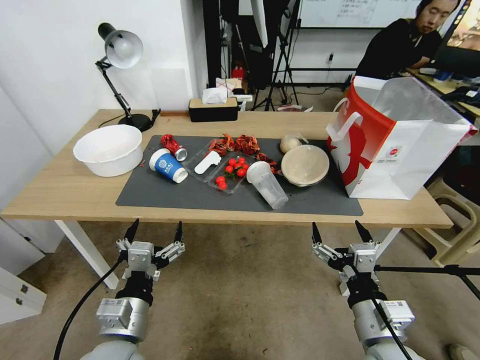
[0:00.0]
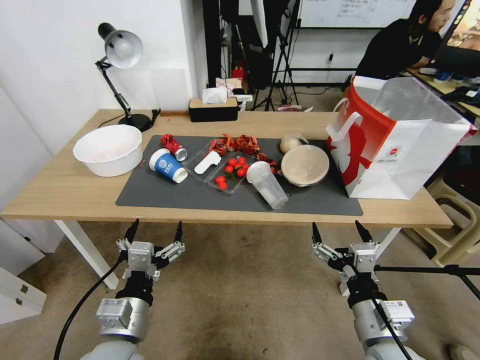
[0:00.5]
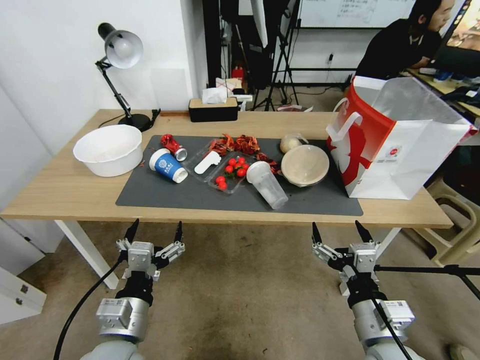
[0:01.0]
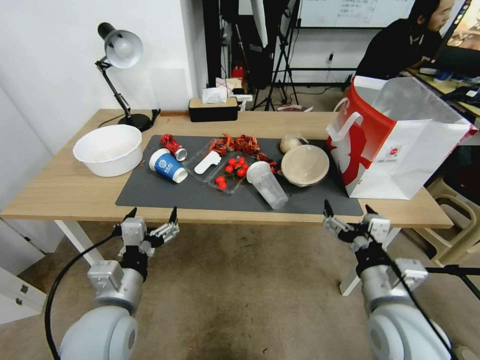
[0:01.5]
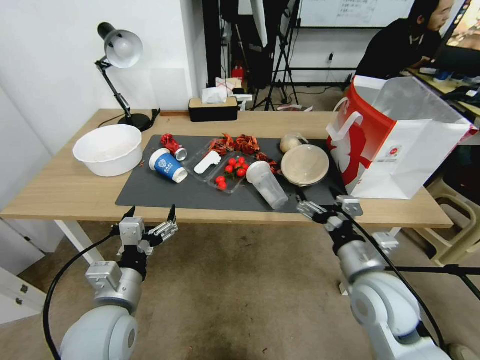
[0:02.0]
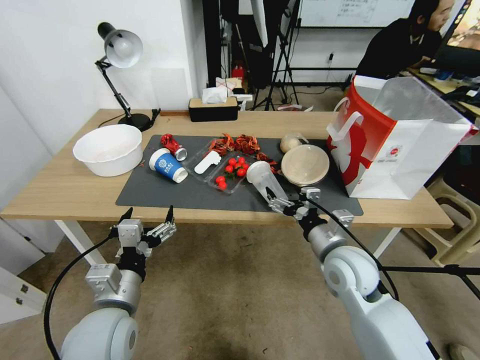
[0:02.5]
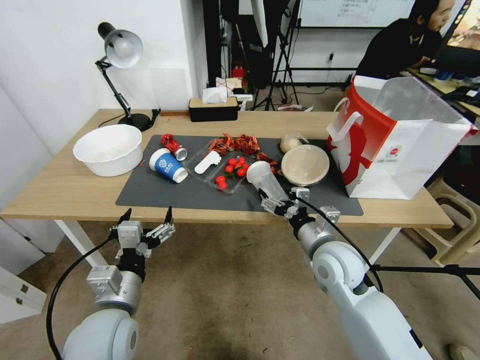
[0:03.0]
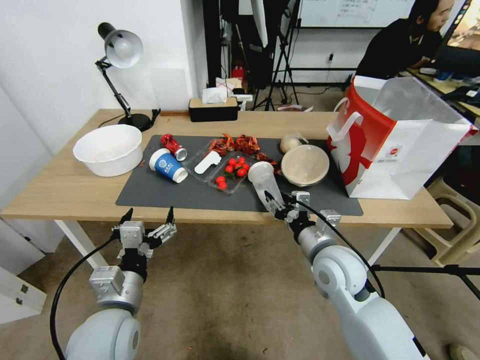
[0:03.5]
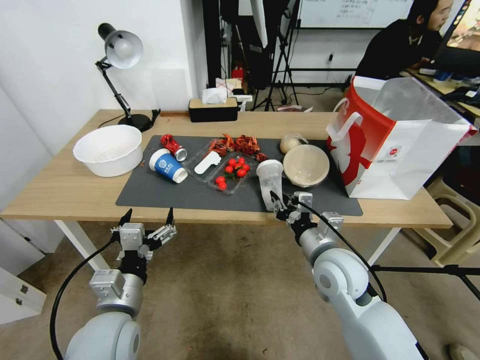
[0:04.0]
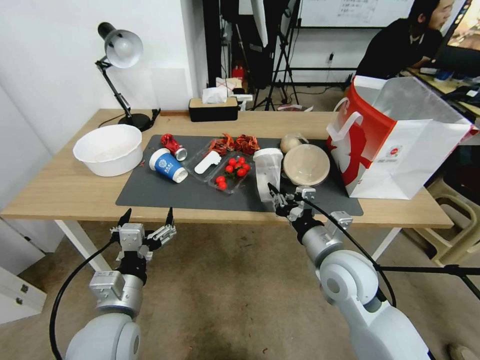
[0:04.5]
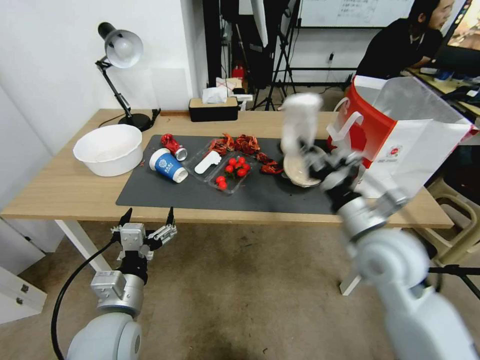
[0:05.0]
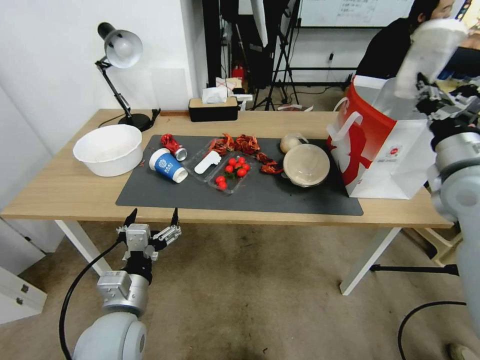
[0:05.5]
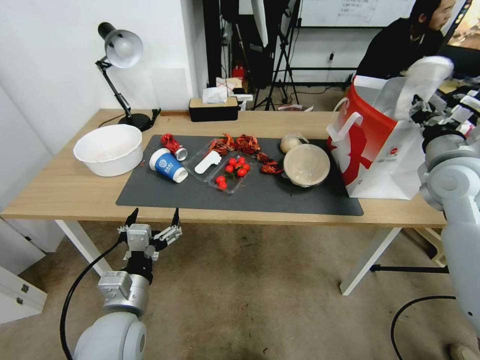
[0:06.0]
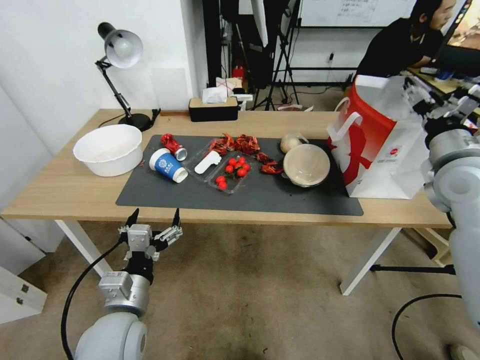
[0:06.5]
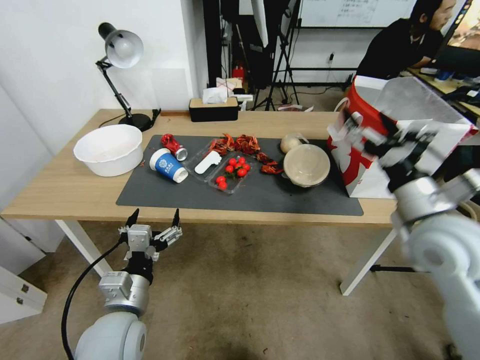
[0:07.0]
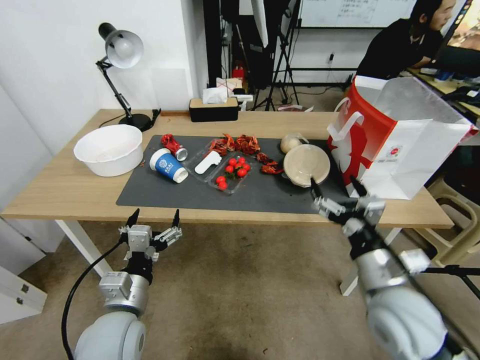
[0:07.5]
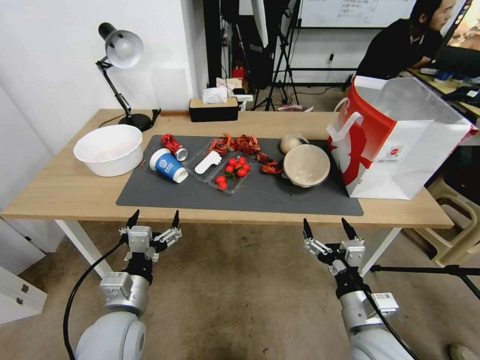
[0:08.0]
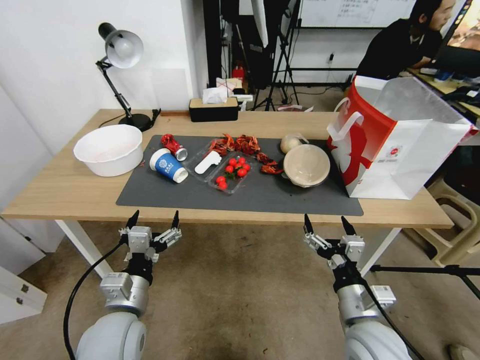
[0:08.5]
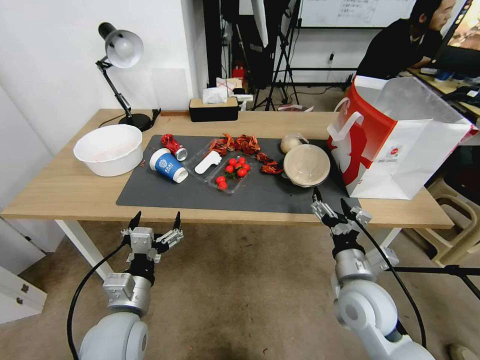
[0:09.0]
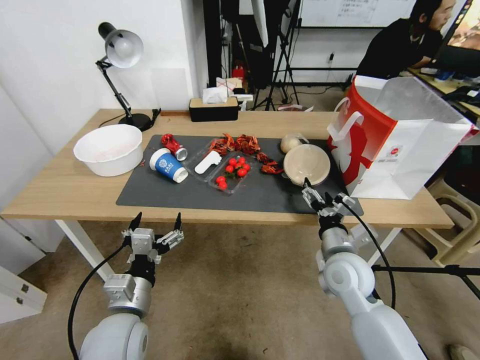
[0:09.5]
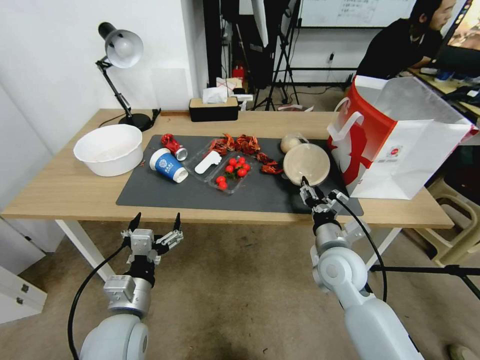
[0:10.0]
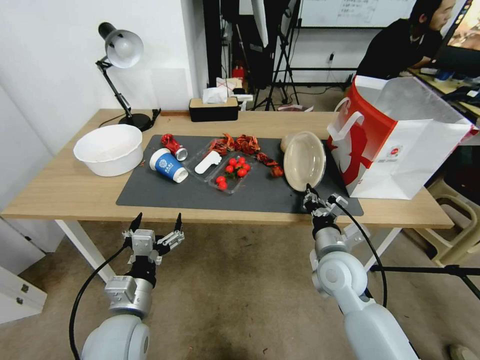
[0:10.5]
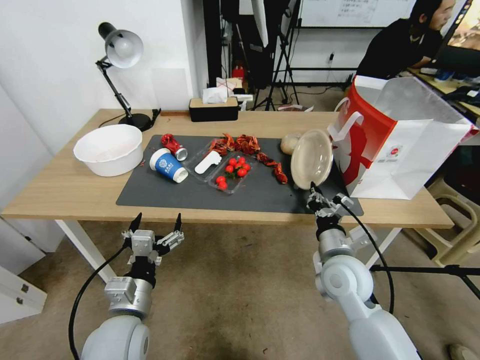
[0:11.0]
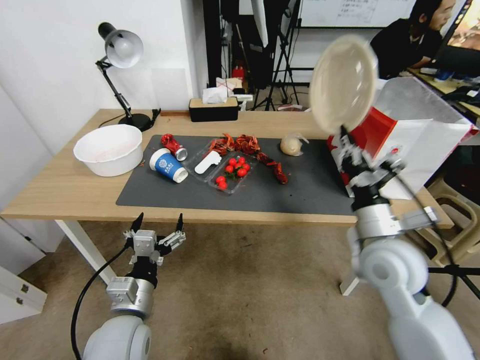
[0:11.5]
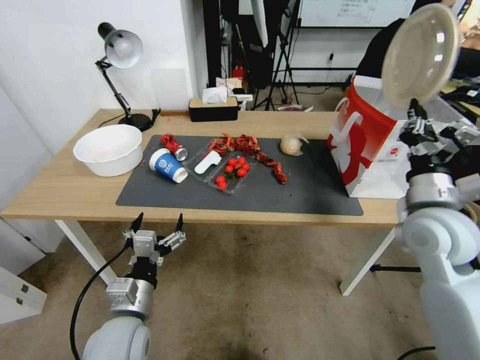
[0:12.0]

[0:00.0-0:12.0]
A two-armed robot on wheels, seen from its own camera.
0:02.0 to 0:04.0: The right gripper goes roughly 10 cm forward and to the left, and closes.
0:04.0 to 0:06.0: The right gripper goes about 30 cm to the right, upward and forward.
0:06.0 to 0:08.0: The right gripper moves backward, downward and to the left, roughly 35 cm, and opens up.
0:08.0 to 0:10.0: The right gripper is displaced forward by some 15 cm, and closes its fingers.
0:10.0 to 0:12.0: The right gripper is displaced upward and to the right by approximately 15 cm, and closes up.

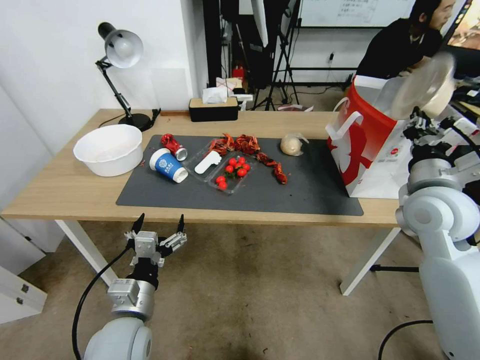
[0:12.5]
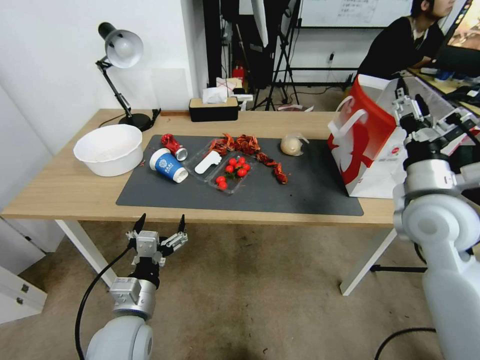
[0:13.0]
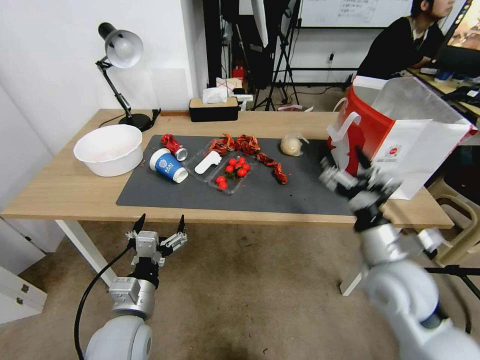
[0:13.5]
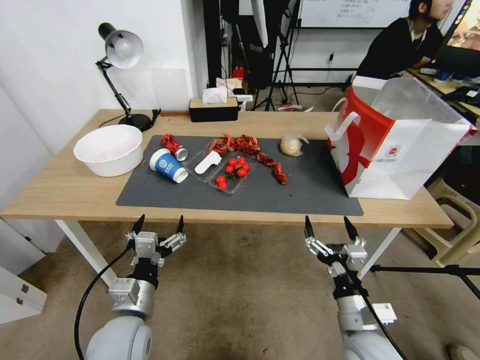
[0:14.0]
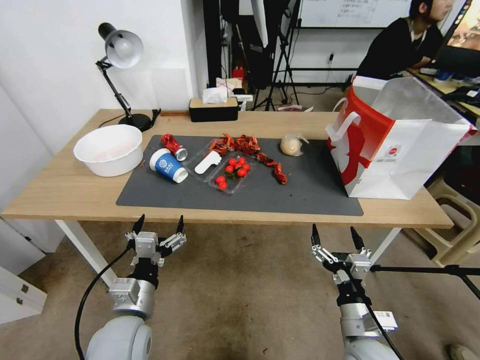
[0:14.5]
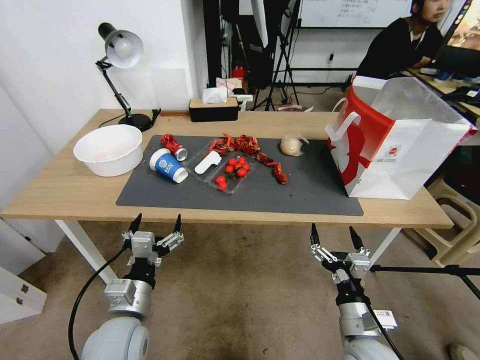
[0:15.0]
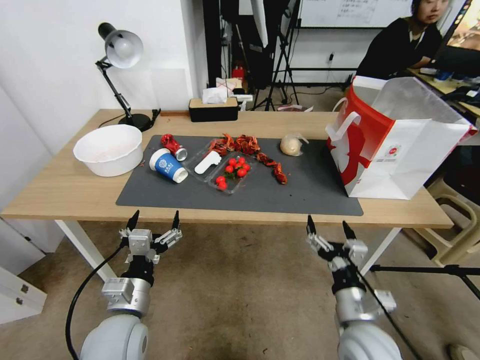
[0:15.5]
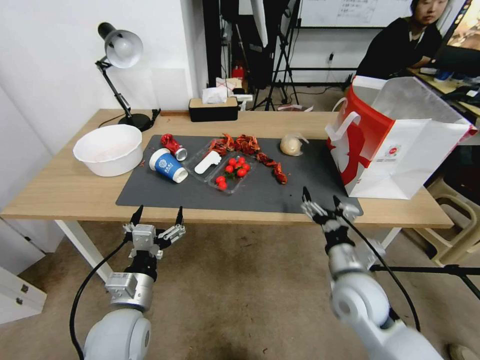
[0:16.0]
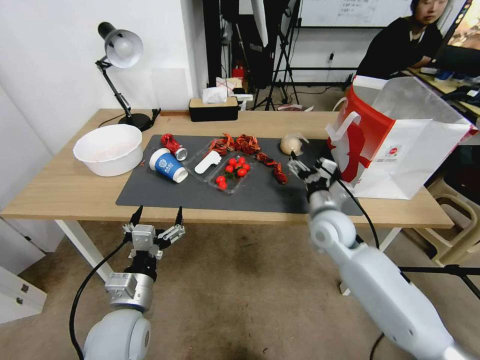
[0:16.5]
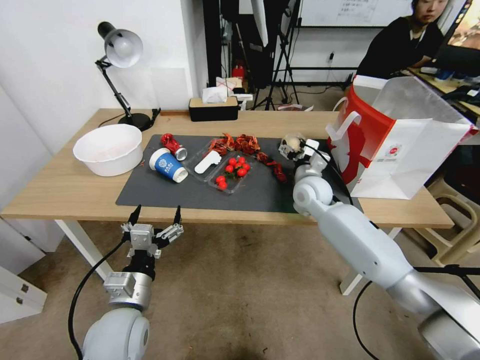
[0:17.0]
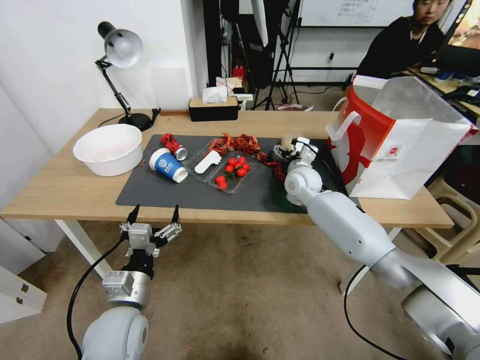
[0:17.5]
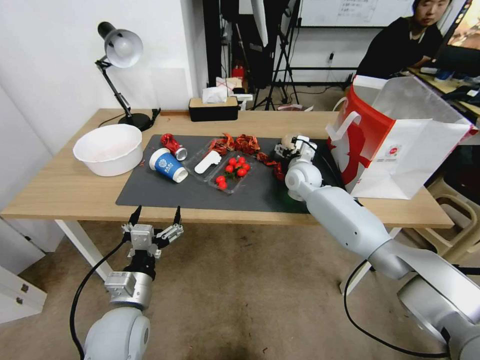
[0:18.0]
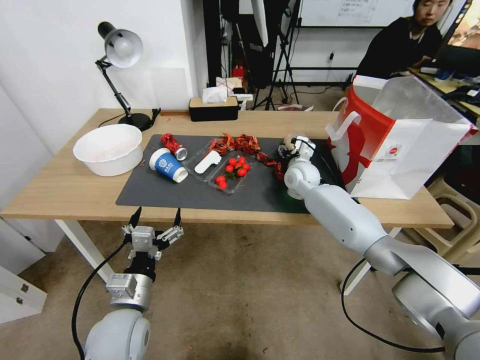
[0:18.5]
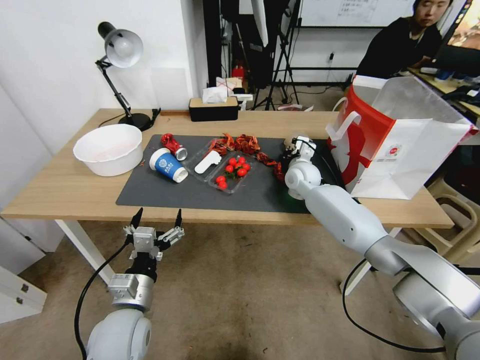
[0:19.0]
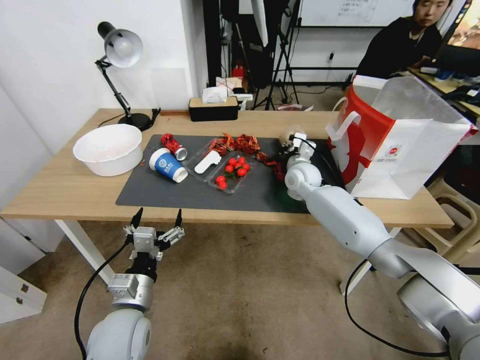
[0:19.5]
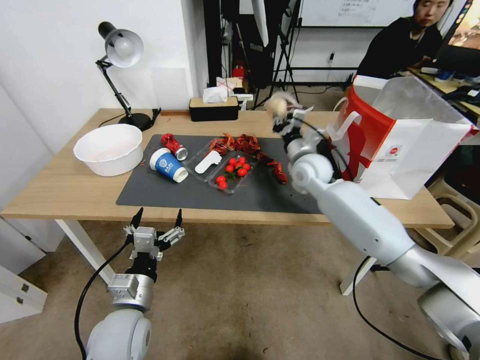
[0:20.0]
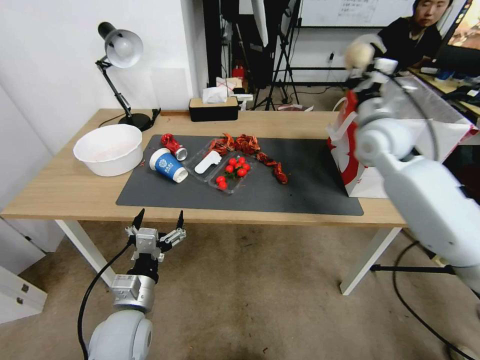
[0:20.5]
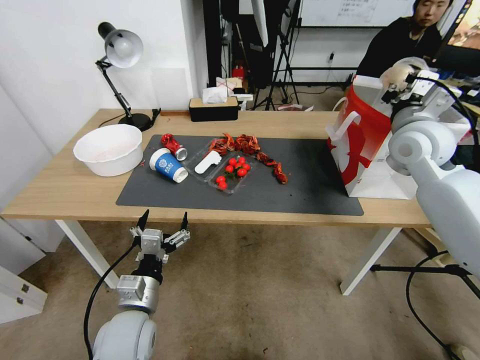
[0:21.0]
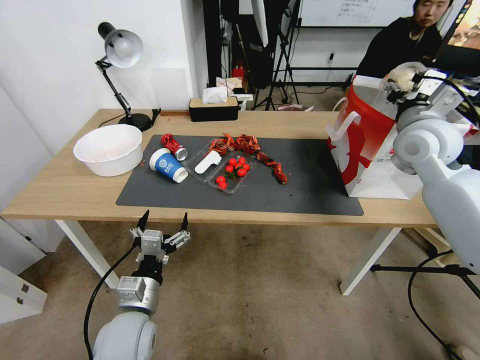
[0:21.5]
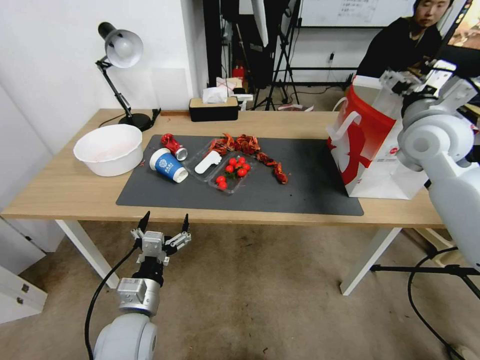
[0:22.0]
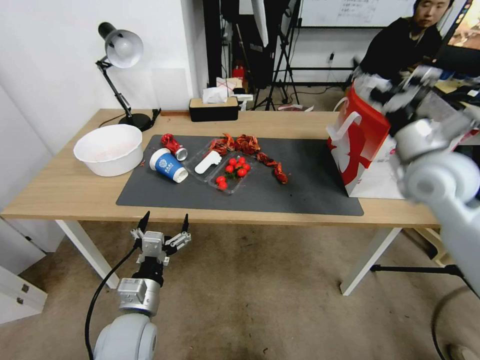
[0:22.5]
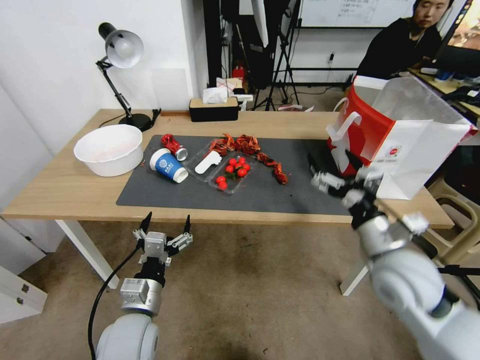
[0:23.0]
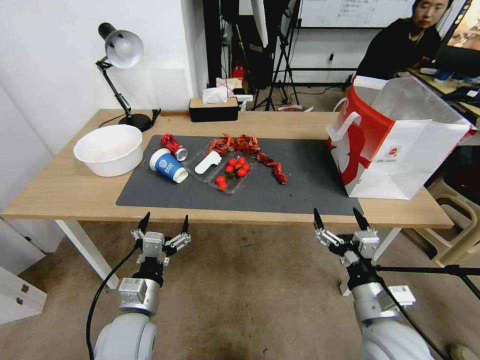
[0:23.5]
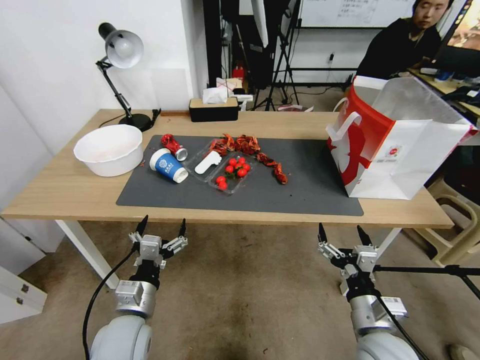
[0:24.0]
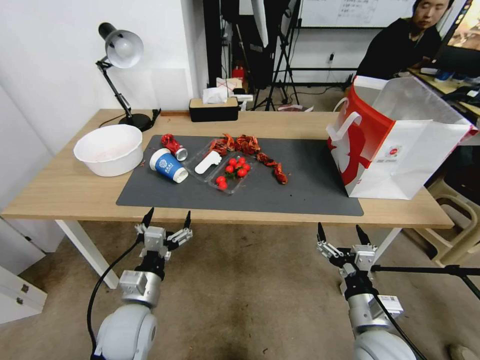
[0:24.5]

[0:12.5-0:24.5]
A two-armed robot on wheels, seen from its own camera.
0:12.5 to 0:14.5: The right gripper moves downward and backward, some 30 cm, and opens up.
0:14.5 to 0:16.5: The right gripper travels forward by some 25 cm.
0:16.5 to 0:18.5: The right gripper heads forward, covering about 15 cm.
0:18.5 to 0:20.5: The right gripper moves upward and to the right, about 20 cm, and closes.
0:20.5 to 0:22.5: The right gripper moves backward and to the right, some 10 cm, and opens its fingers.
0:22.5 to 0:24.5: The right gripper moves downward and backward, approximately 35 cm.

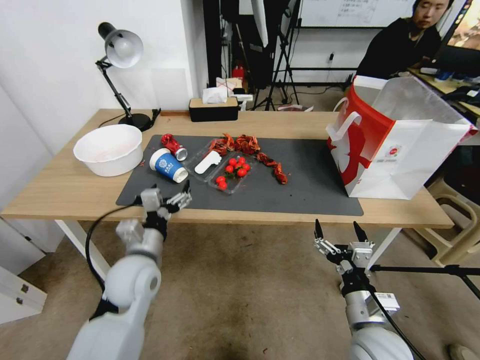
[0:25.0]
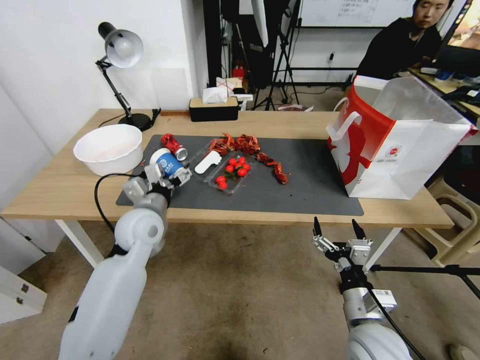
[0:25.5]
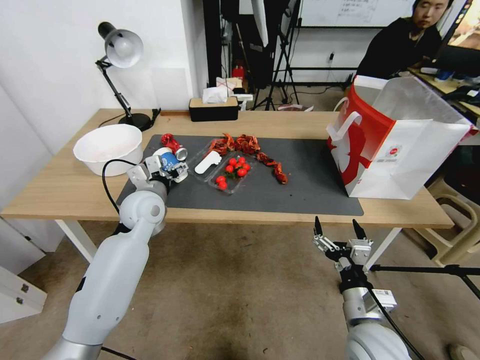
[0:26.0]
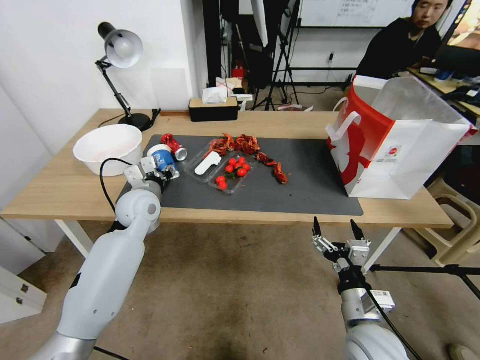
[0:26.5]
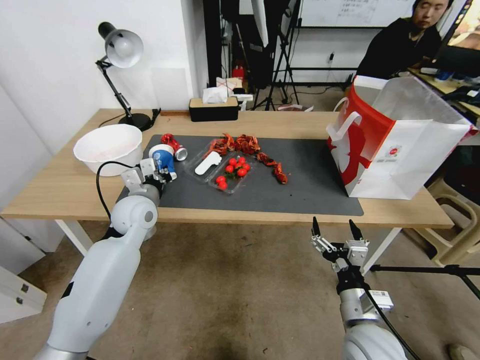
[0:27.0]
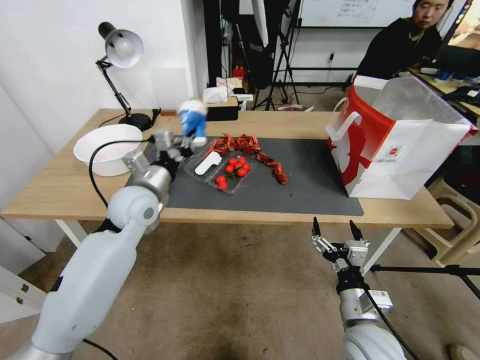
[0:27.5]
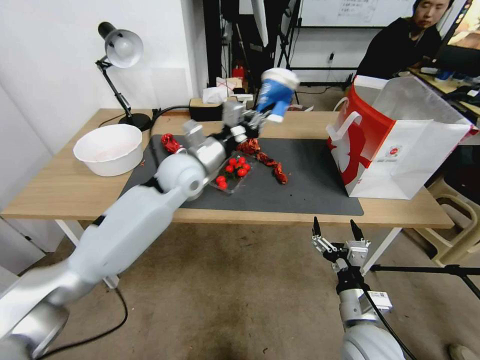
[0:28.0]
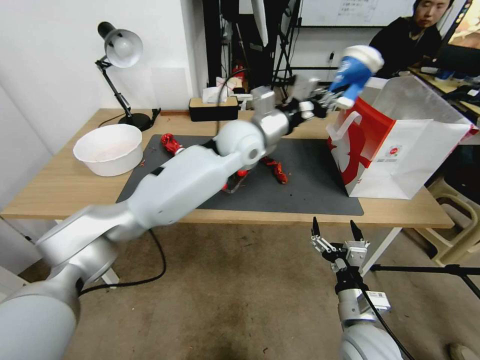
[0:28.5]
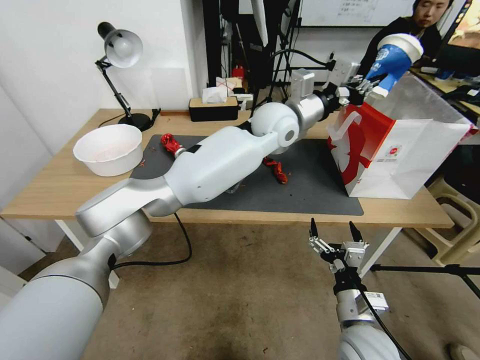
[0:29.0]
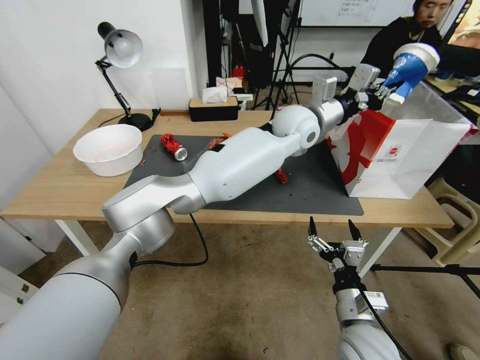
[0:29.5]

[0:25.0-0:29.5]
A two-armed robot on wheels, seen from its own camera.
0:25.0 to 0:27.0: The left gripper travels forward by roughly 15 cm, and closes its fingers.
0:27.0 to 0:29.5: The left gripper goes roughly 40 cm to the right and upward.
